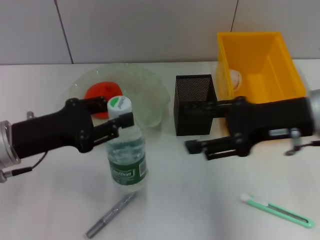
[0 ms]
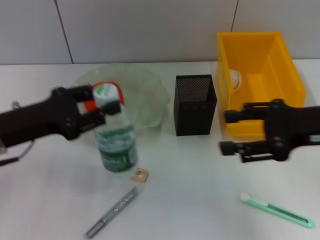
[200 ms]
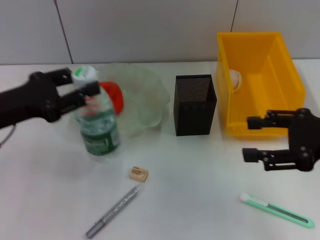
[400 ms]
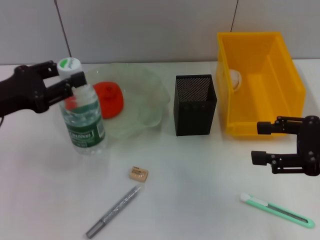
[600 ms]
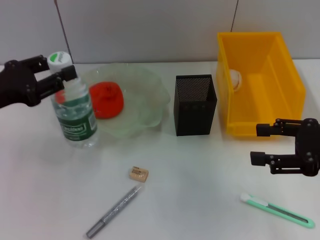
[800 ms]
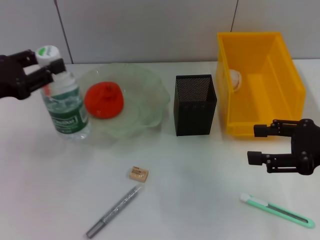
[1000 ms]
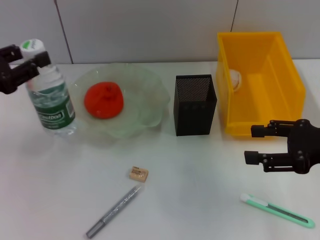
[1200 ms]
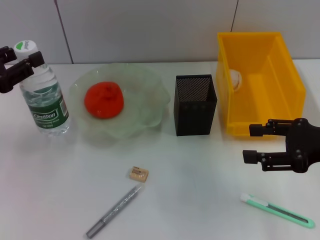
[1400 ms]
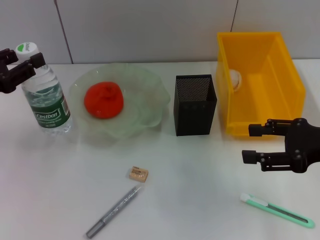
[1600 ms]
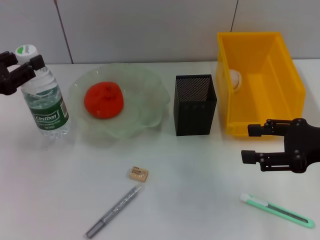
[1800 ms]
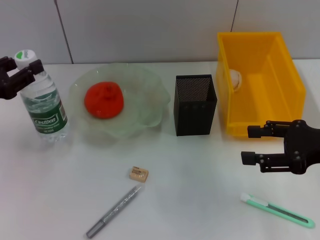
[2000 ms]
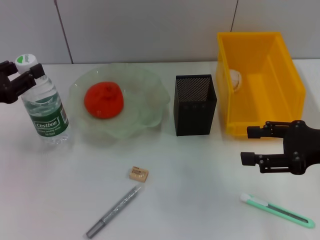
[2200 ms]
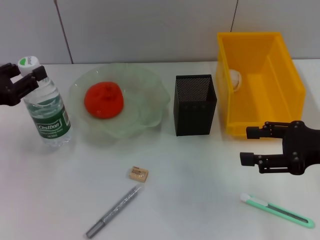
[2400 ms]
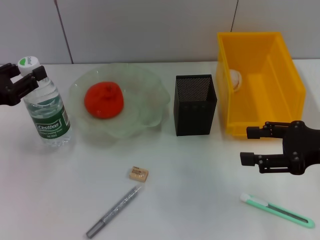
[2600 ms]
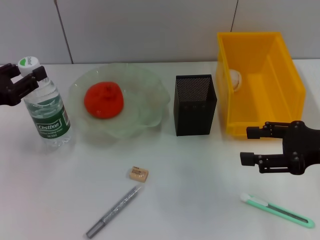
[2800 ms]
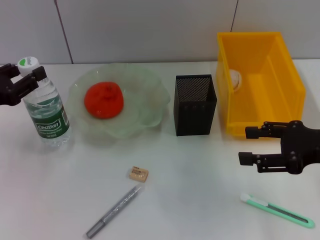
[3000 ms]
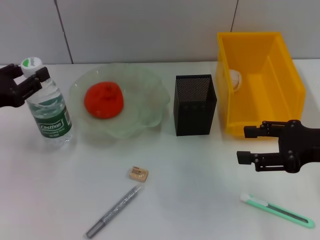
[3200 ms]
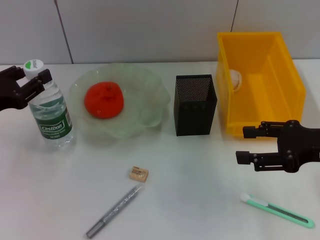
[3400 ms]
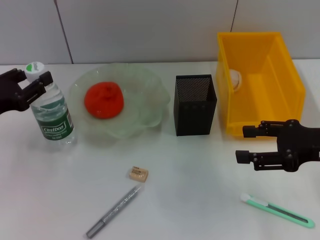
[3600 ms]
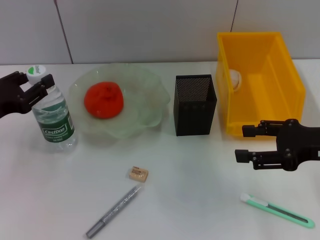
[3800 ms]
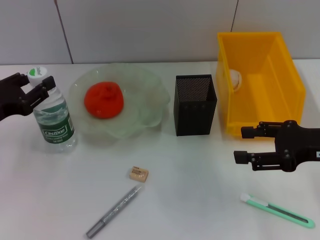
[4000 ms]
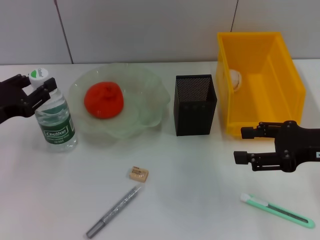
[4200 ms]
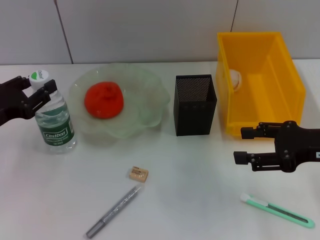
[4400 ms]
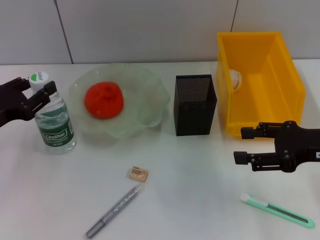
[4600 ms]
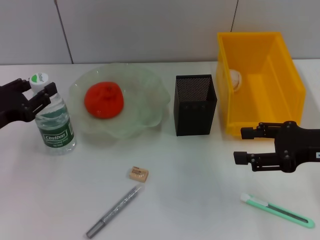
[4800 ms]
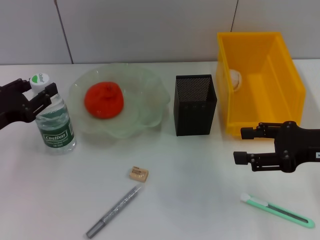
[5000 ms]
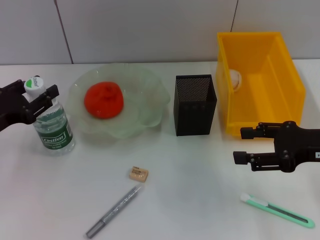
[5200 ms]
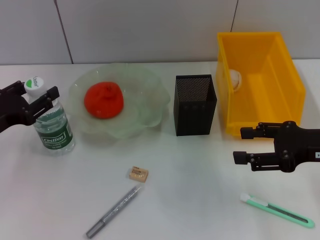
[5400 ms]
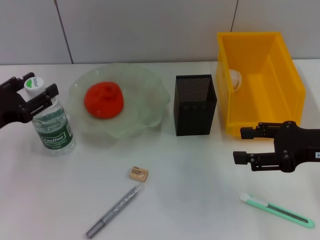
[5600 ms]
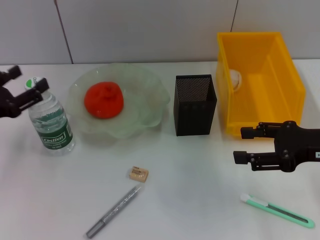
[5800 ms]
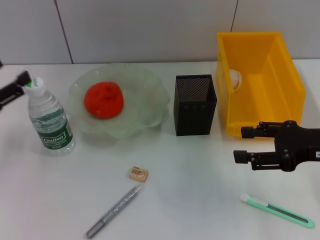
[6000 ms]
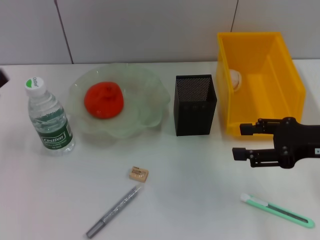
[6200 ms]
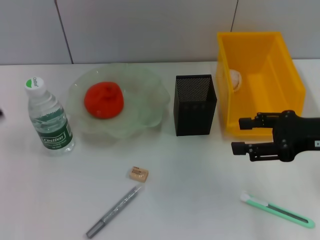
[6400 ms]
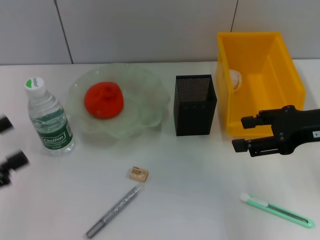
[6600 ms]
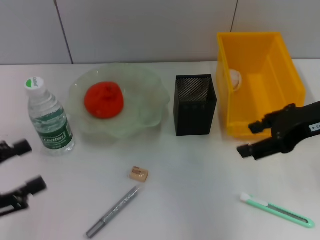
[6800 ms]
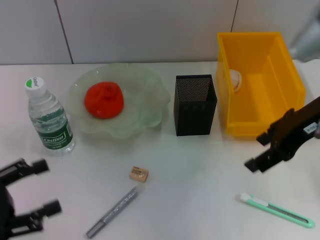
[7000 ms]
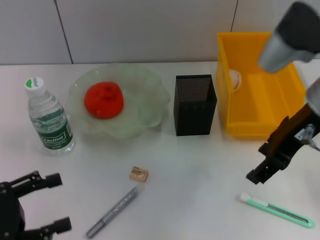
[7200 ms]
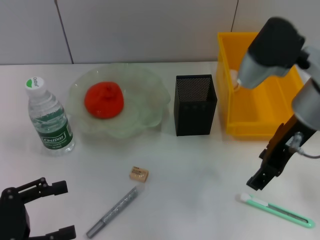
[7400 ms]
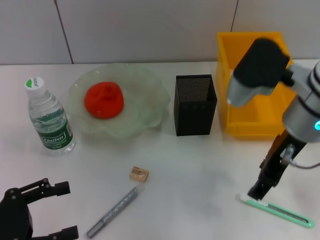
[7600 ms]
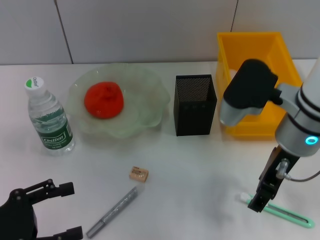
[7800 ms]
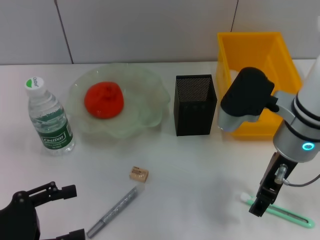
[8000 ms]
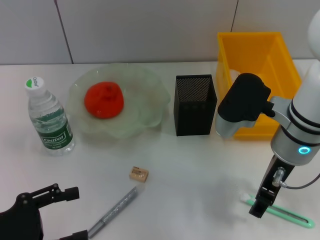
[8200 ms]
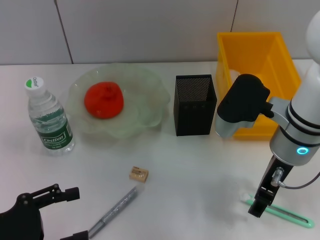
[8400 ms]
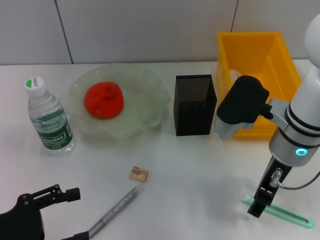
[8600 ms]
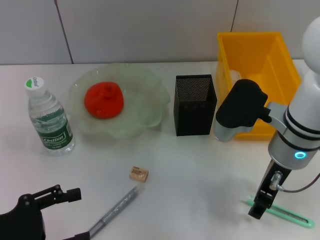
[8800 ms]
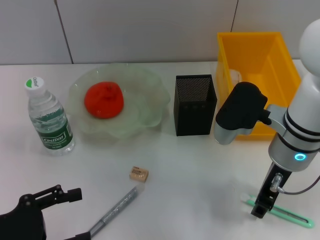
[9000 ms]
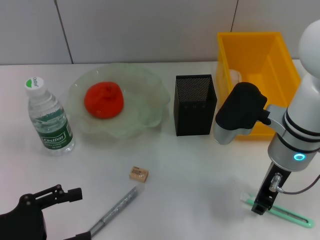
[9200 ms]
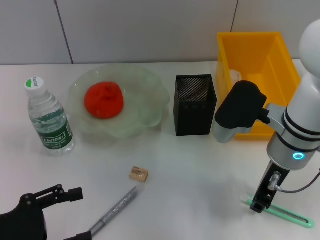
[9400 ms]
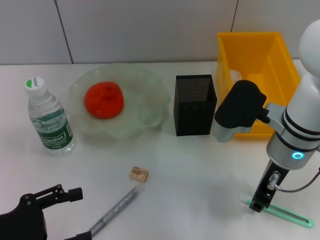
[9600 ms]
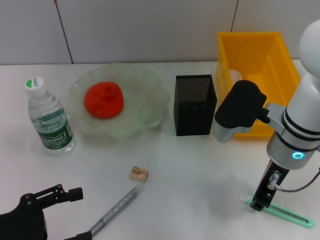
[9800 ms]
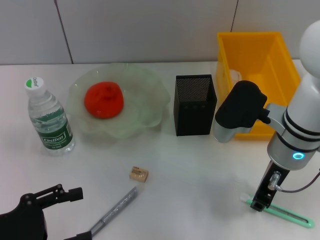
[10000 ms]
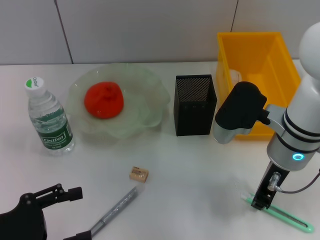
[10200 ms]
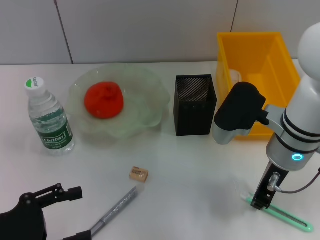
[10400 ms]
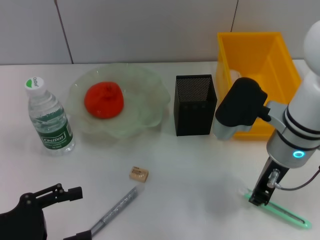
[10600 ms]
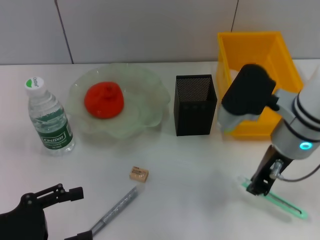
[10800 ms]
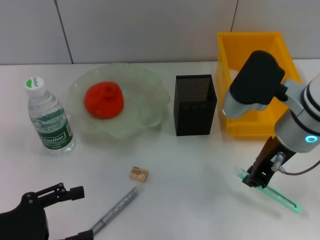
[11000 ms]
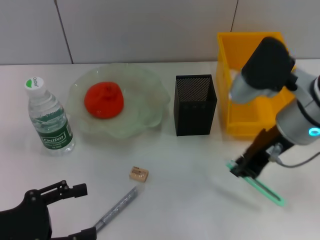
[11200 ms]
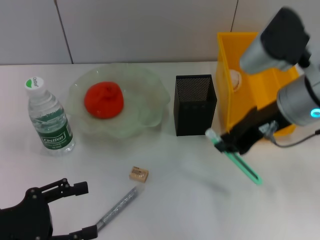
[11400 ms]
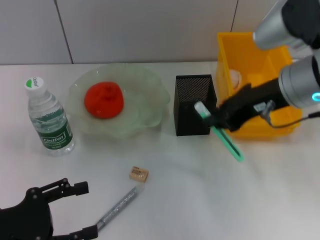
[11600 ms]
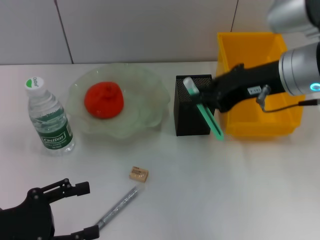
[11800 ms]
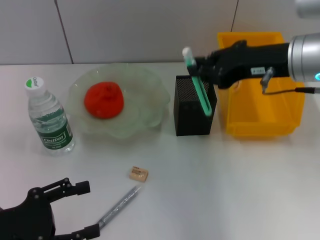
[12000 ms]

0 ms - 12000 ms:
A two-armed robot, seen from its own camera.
Step, 0 ms - 5200 ms: Place the water bottle on the table with the left hand.
Step, 5400 ms - 10400 ms: Grab the blue utility knife with the right hand.
0 ms - 1600 ms: The left gripper heads to the left, covering roughly 10 cm; the right gripper moves to the right, some 10 cm.
1600 ms - 4400 ms: The grippers move only a little.
4400 ms - 6000 ms: The left gripper opens up.
6000 ms - 7600 ms: The left gripper moves backward, roughly 10 cm. The right gripper travels to the left and upward by some 15 cm.
7600 ms - 9000 ms: The right gripper travels downward by roughly 5 cm.
9000 ms - 10400 ms: The right gripper closes.
10400 ms - 12000 ms: The right gripper travels upward by some 10 cm.

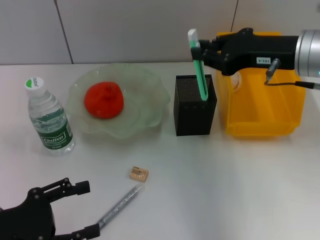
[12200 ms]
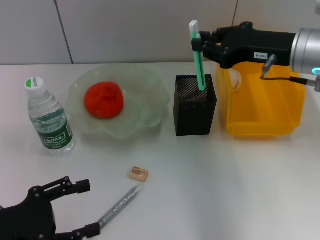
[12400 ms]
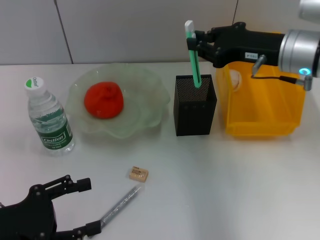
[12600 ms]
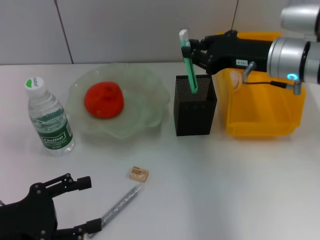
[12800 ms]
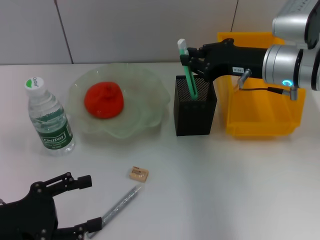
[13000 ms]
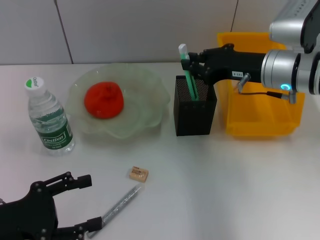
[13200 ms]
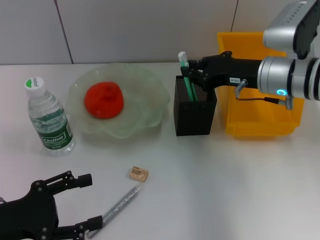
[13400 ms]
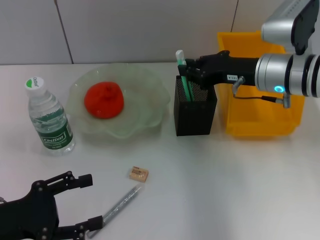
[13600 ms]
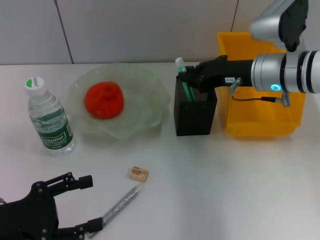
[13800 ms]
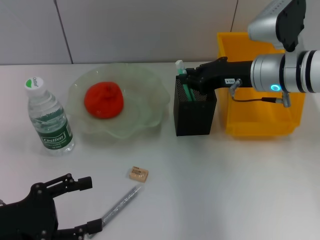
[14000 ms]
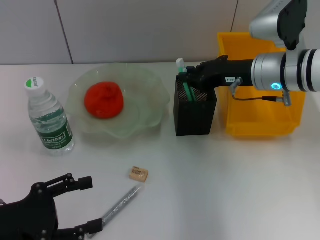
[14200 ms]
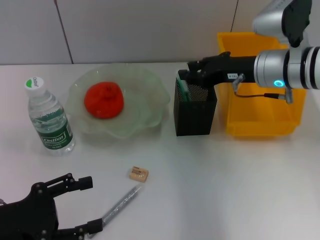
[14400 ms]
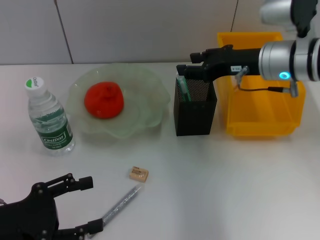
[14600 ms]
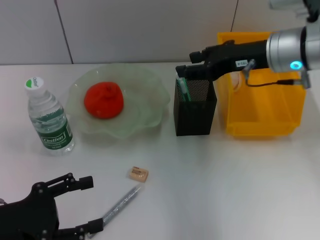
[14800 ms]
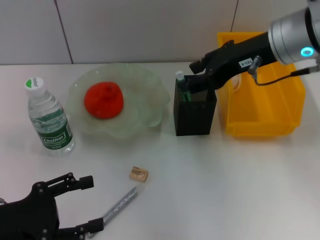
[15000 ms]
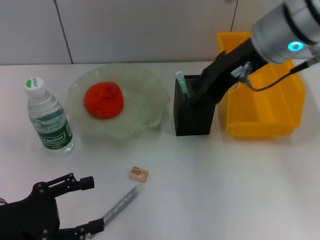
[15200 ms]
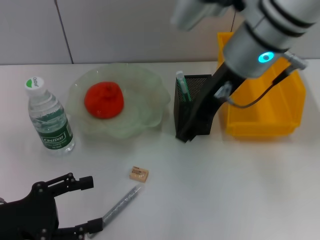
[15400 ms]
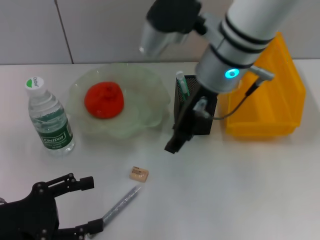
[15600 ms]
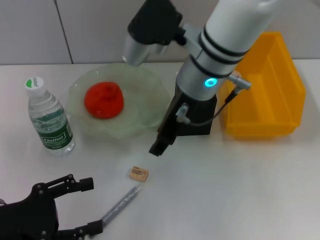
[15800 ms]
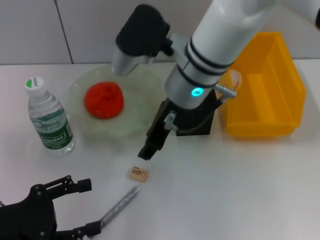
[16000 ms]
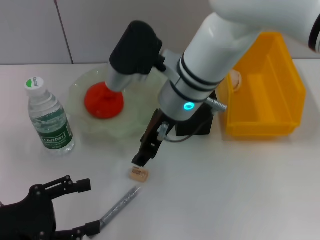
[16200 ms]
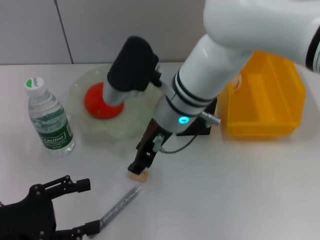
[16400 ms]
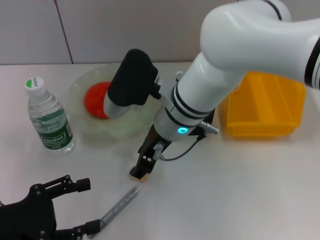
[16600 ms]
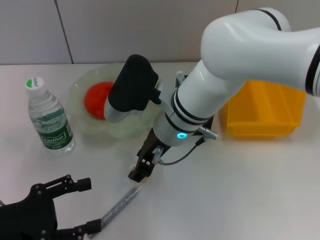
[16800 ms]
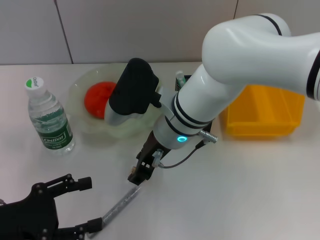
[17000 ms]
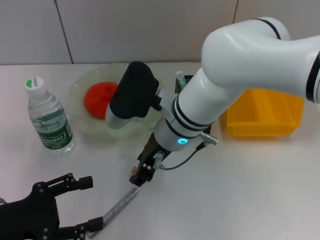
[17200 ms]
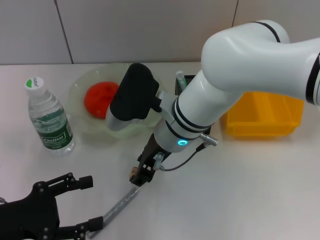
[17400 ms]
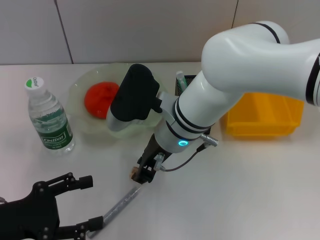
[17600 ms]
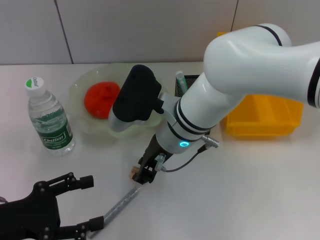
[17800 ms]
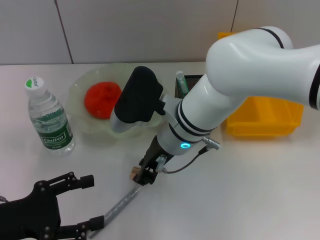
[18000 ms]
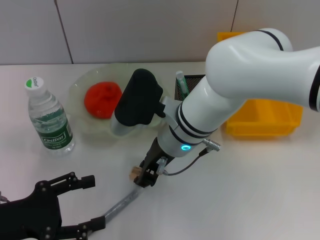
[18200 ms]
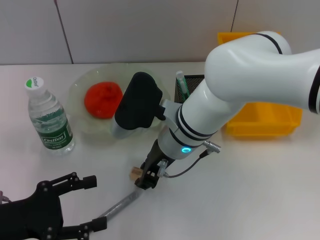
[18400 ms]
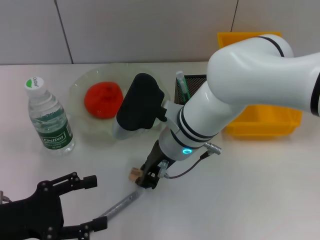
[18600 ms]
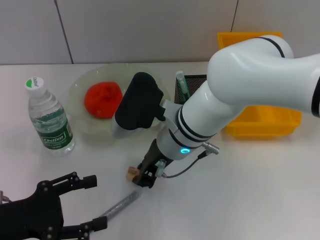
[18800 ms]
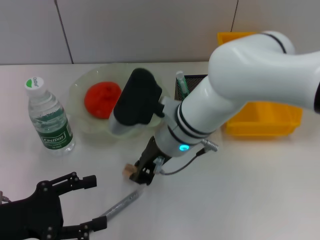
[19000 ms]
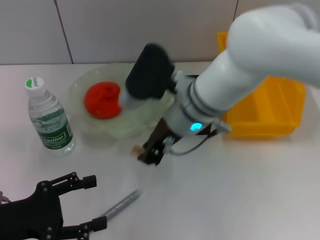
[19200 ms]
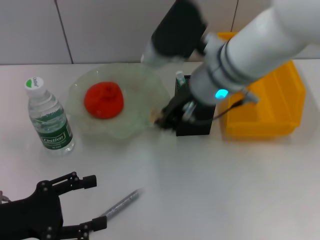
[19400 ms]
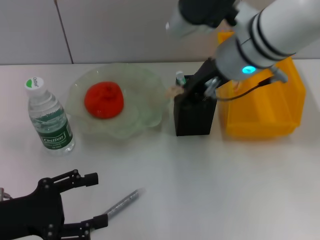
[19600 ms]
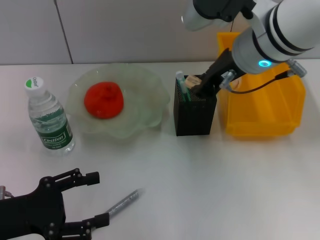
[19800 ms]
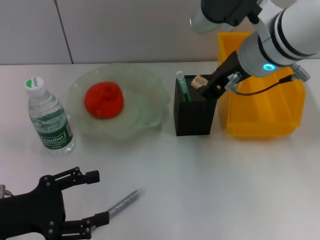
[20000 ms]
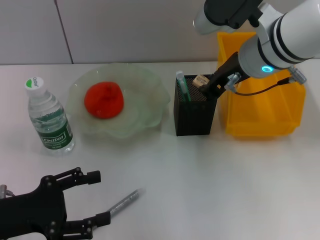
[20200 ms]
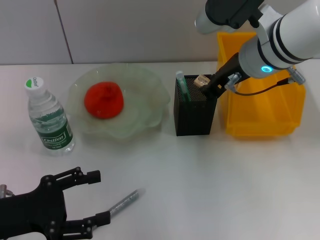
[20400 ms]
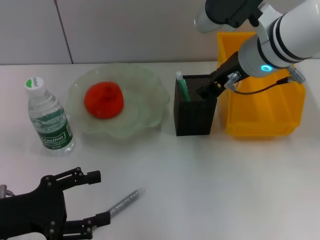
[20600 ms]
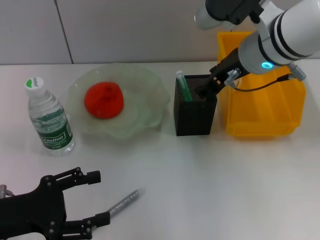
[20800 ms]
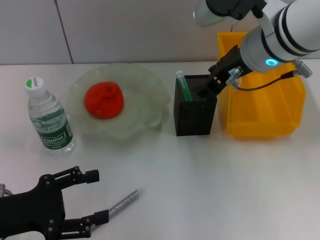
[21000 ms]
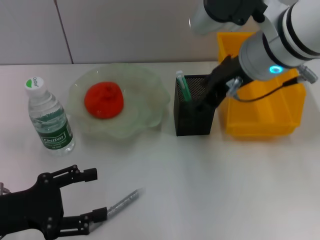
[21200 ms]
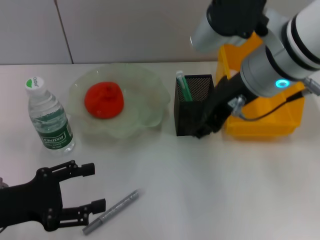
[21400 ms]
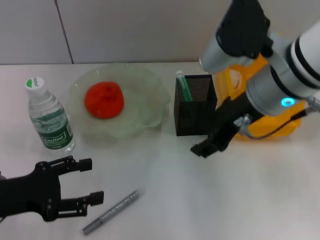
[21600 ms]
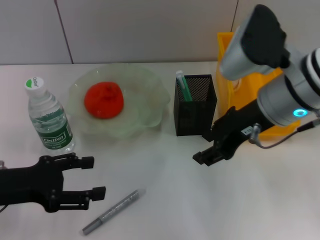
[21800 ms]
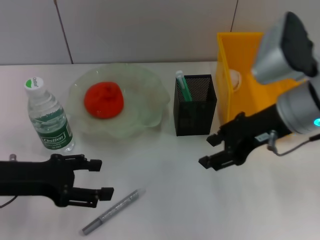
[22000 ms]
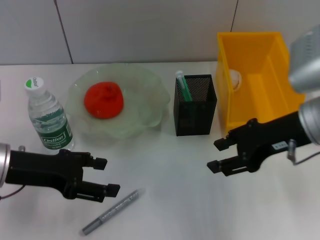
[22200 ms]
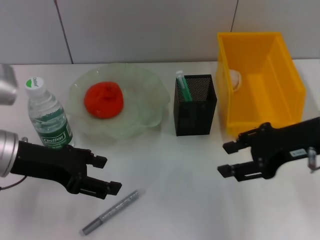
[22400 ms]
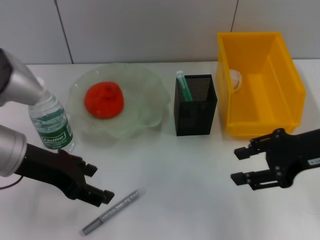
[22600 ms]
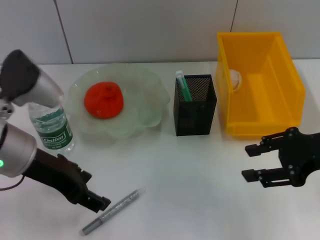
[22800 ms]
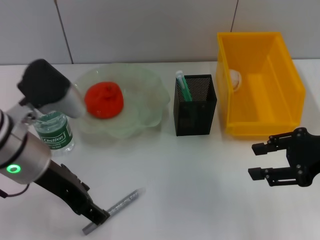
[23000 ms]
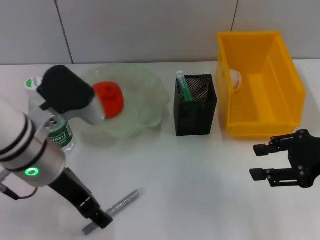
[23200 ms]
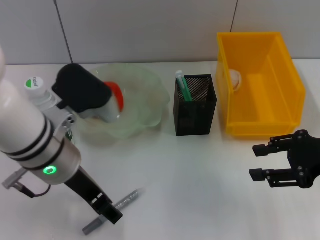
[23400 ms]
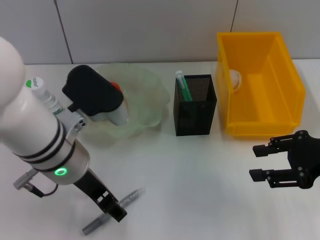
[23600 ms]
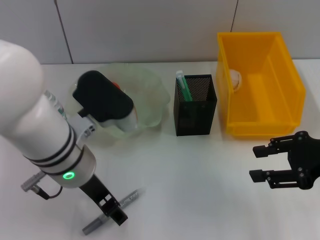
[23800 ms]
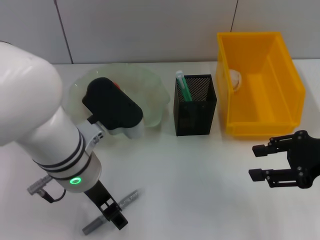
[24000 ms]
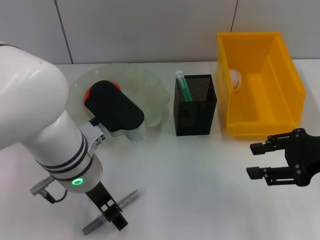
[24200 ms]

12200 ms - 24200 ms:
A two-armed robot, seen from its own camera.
Step, 12200 ms - 14200 ms: Place the blue utility knife into the pen holder with the right hand.
Step, 14400 ms - 18800 ms: Grab the eraser with the right hand.
Step, 19000 ms - 20600 ms: Put the eraser into the pen holder with the right hand.
12200 ms - 13800 ms: The right gripper shifts approximately 5 cm downward.
13800 ms - 15200 ms: The right gripper shifts about 15 cm upward, and opens.
15200 ms - 16600 ms: The right gripper moves downward and to the left, some 15 cm.
18200 ms - 19800 ms: The right gripper travels upward and to the right by approximately 15 cm.
19800 ms - 21200 ms: The right gripper opens up.
21200 ms - 22600 ms: The left gripper travels upward, forward and to the right by some 15 cm, while the right gripper moves to the right, downward and backward, about 15 cm.
22600 ms - 24200 ms: The left gripper is displaced to the right by roughly 10 cm.
